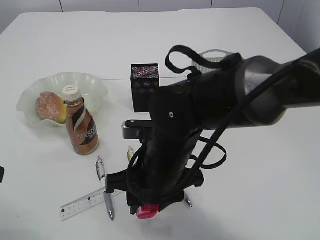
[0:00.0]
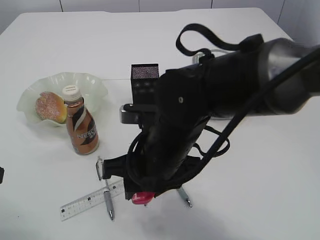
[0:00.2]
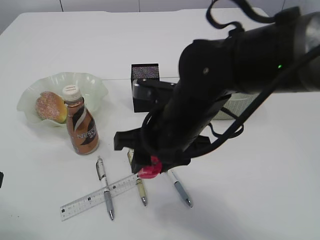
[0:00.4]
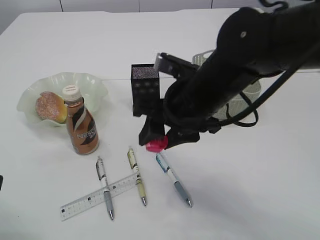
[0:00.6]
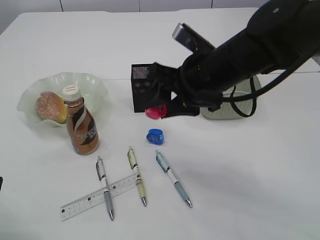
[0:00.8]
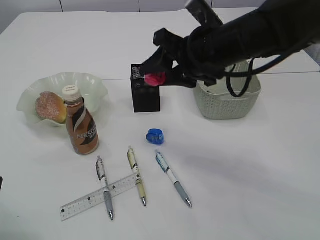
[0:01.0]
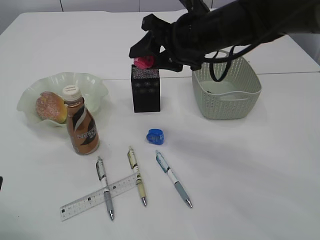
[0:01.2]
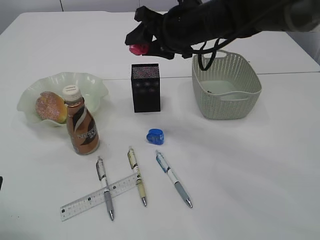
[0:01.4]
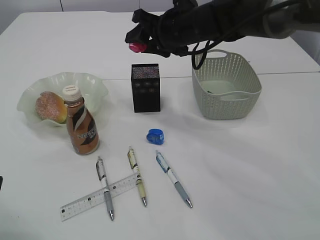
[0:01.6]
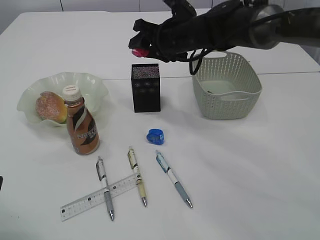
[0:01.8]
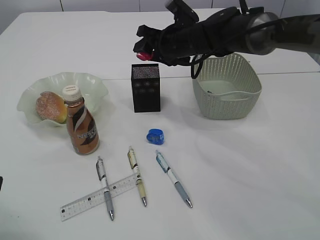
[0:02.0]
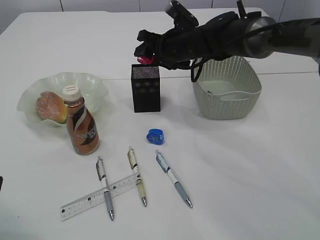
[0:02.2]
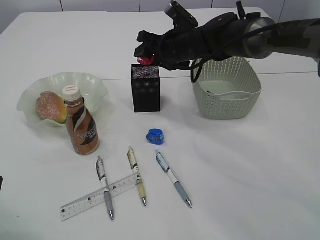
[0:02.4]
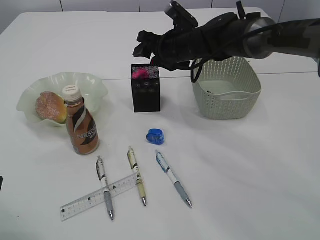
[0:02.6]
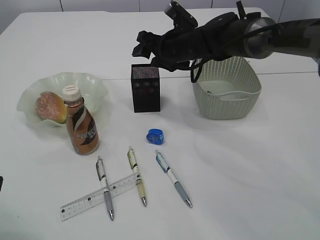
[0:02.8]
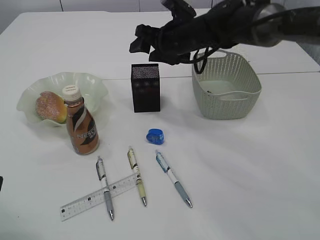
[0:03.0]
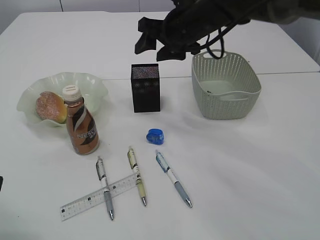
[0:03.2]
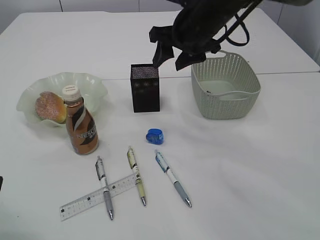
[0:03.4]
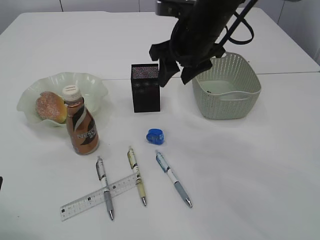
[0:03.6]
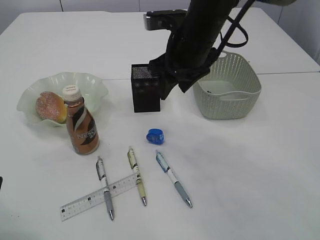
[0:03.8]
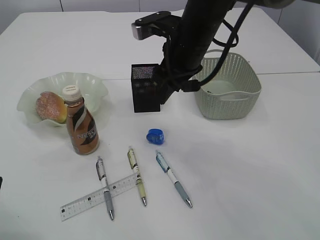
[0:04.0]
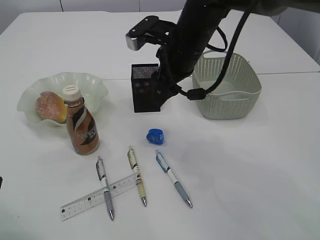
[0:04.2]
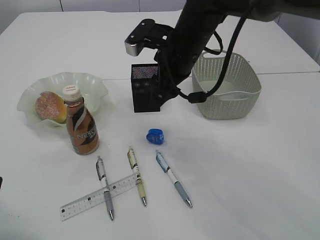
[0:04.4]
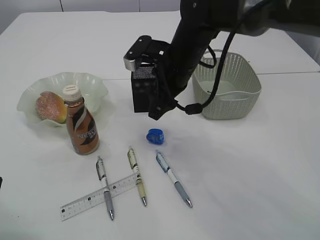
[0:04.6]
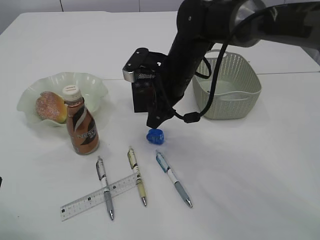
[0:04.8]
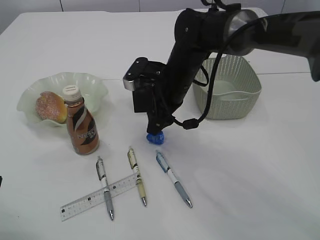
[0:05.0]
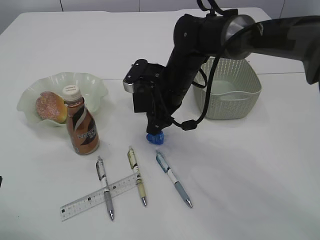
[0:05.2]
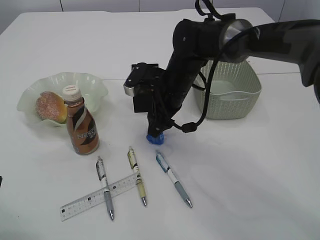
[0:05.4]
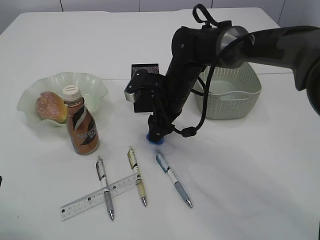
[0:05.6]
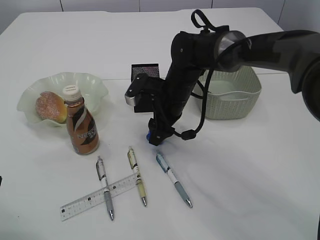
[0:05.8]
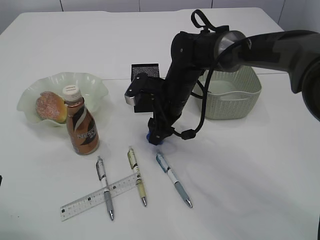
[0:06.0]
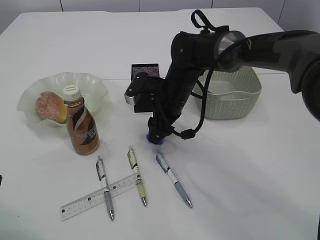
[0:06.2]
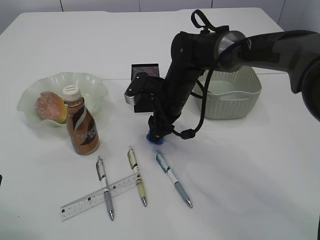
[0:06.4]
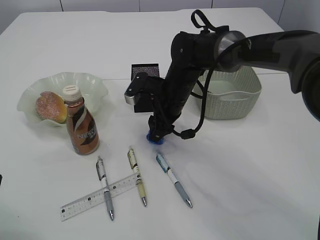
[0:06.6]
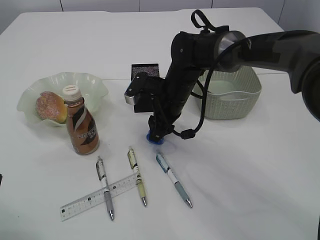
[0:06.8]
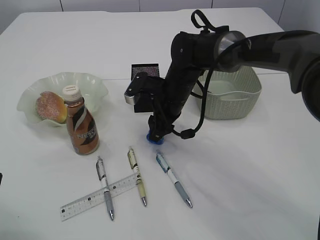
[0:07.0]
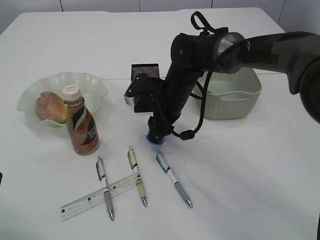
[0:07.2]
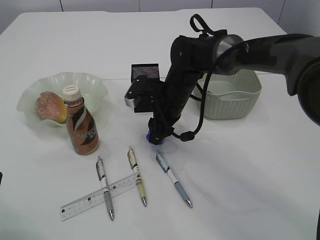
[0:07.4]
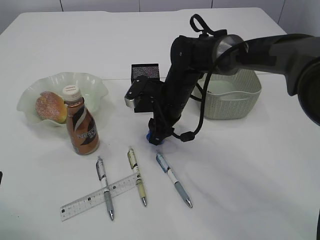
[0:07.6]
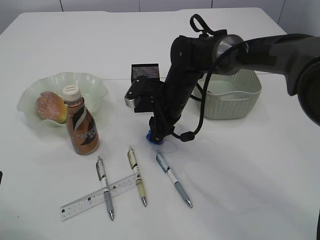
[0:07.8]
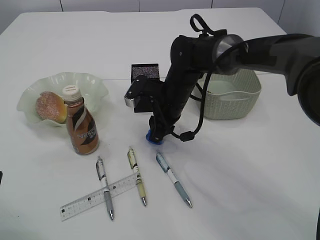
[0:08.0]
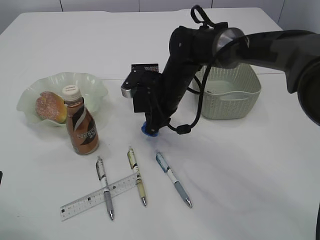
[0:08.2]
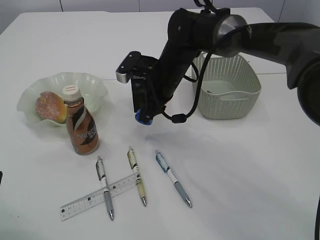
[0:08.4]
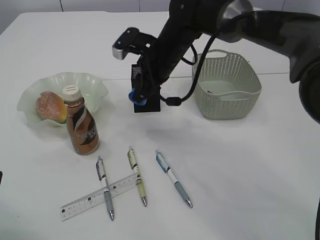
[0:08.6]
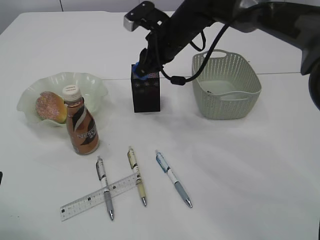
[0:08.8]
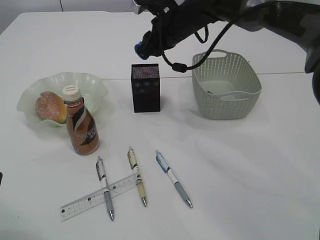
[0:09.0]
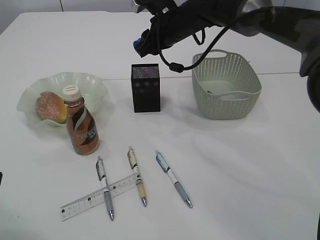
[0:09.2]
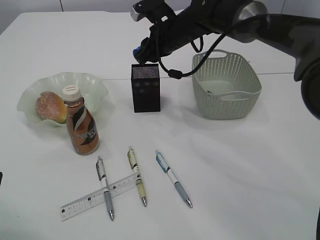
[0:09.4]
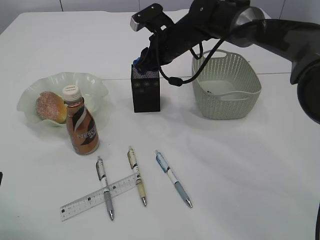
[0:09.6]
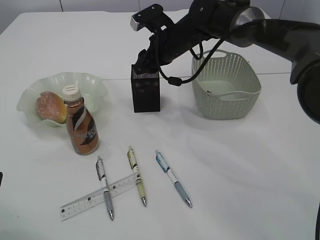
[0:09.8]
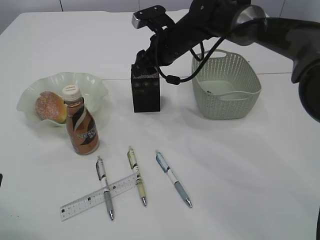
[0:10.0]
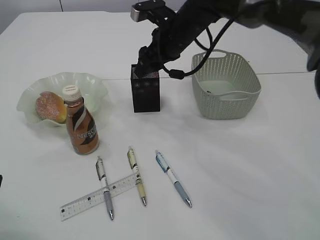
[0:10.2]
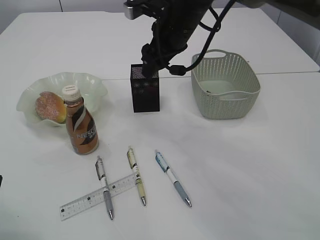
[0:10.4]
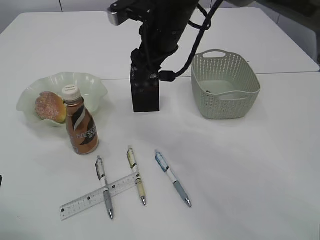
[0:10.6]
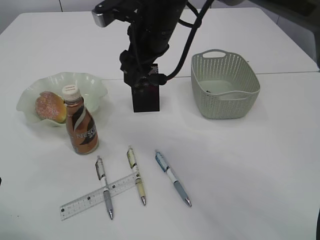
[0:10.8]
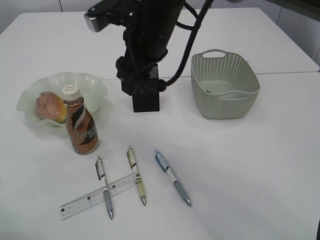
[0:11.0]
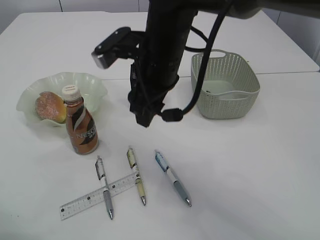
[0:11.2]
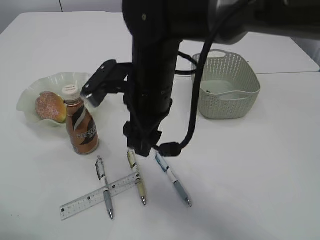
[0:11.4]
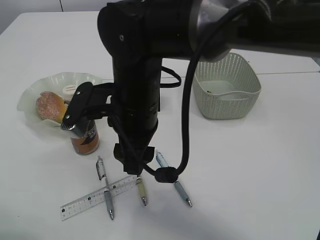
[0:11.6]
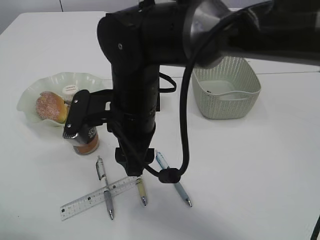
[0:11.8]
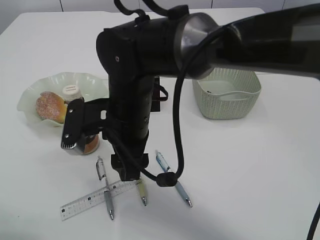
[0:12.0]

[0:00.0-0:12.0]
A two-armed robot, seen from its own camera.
Step, 0:00.2 to 0:03.0: Place the red pencil sharpener into the pen holder.
Step, 0:03.2 to 0:08.2: Pick up the blue pencil sharpener.
Step, 0:08.4 to 0:10.8: Place the blue pencil sharpener into the pen holder.
0:00.0 to 0:01.6: The right gripper is displaced forward and upward by roughly 25 cm.
0:03.0 to 0:04.4: The right gripper is displaced backward by roughly 10 cm.
0:04.4 to 0:06.0: The right gripper is displaced downward by about 10 cm.
0:06.0 to 0:07.6: Neither gripper changes place.
0:07.6 to 0:09.0: The right gripper is displaced upward and forward by roughly 15 cm.
0:09.0 to 0:10.4: The right gripper changes place by roughly 5 cm, and opens its fingers.
0:10.4 to 0:12.0: The right gripper heads backward, to the left and downward, covering some 20 cm.

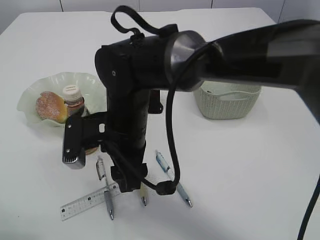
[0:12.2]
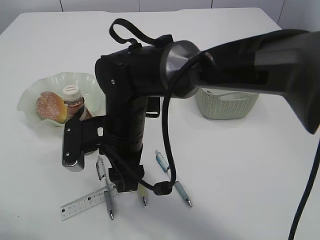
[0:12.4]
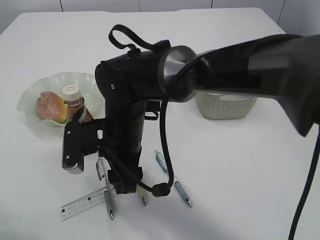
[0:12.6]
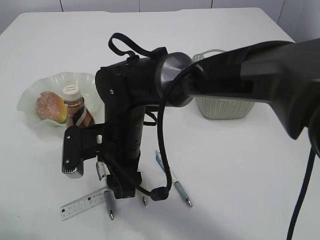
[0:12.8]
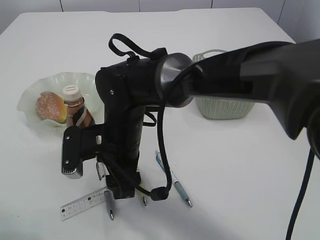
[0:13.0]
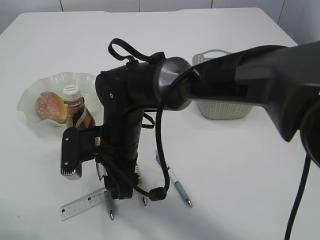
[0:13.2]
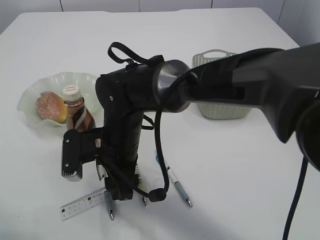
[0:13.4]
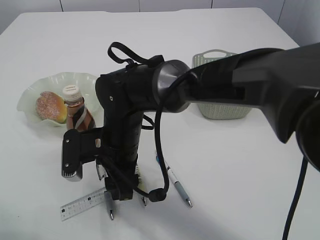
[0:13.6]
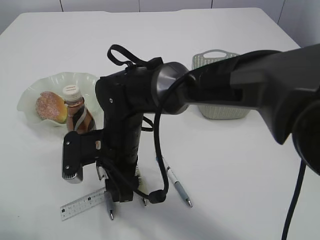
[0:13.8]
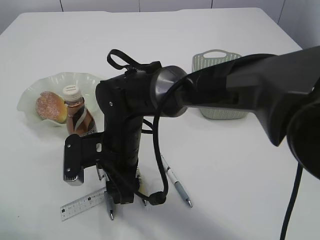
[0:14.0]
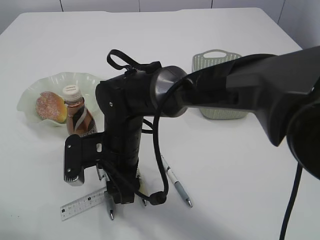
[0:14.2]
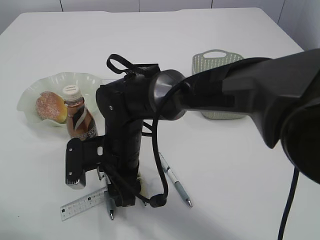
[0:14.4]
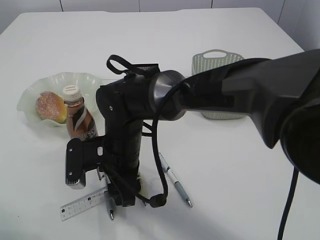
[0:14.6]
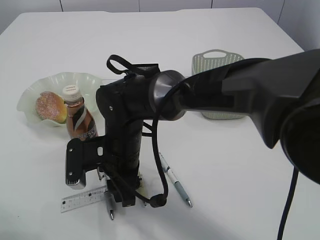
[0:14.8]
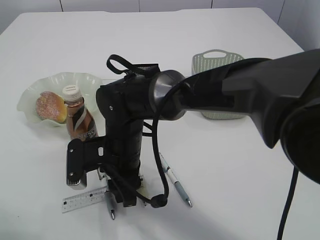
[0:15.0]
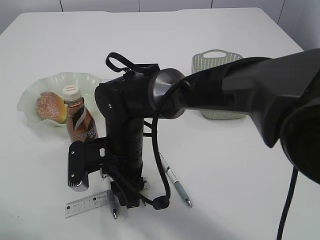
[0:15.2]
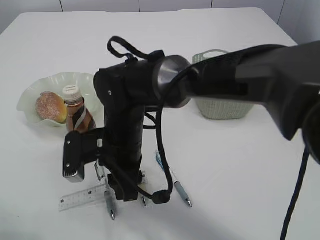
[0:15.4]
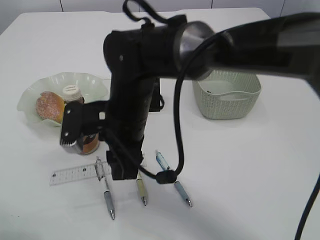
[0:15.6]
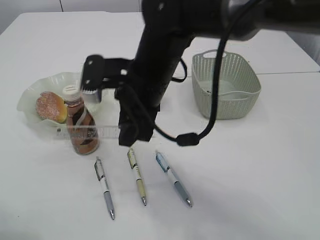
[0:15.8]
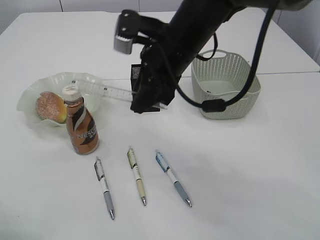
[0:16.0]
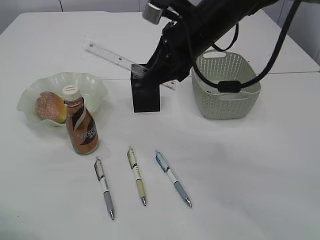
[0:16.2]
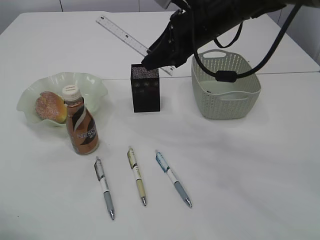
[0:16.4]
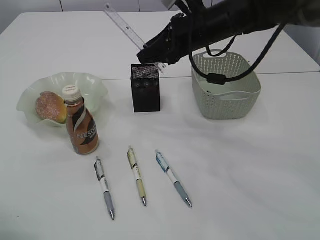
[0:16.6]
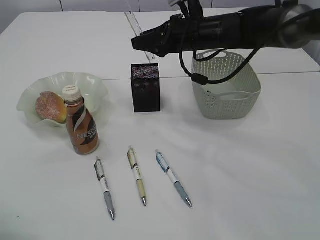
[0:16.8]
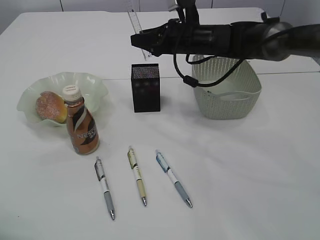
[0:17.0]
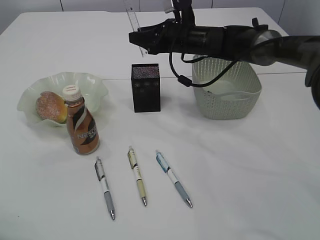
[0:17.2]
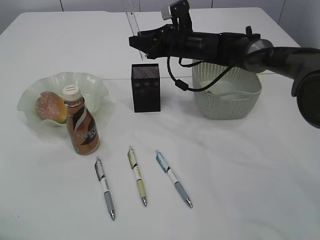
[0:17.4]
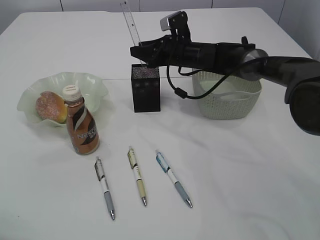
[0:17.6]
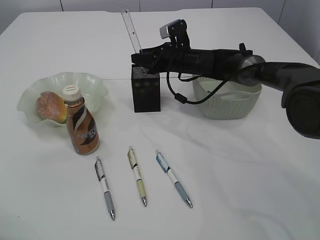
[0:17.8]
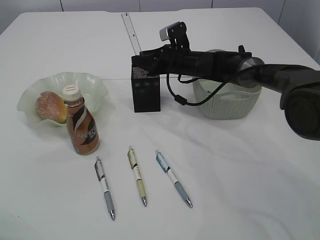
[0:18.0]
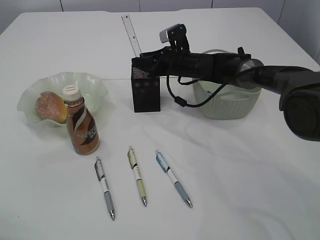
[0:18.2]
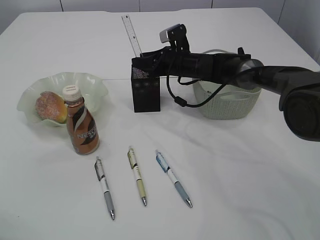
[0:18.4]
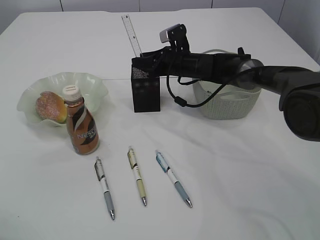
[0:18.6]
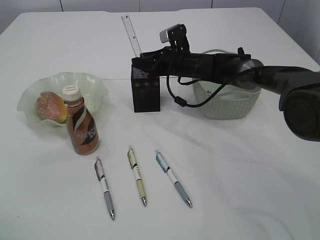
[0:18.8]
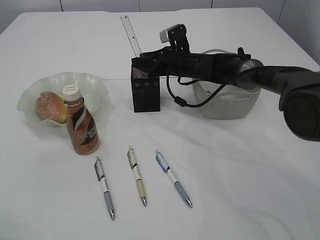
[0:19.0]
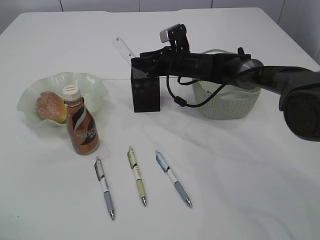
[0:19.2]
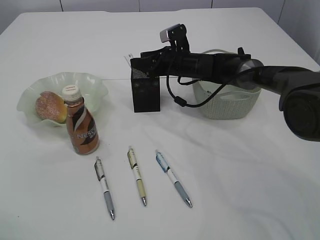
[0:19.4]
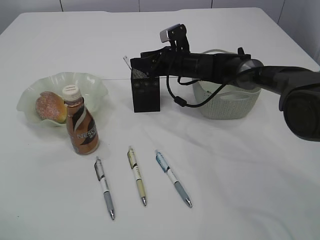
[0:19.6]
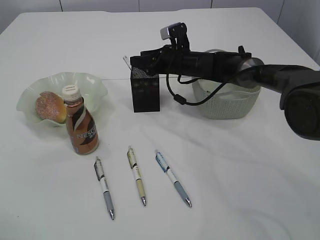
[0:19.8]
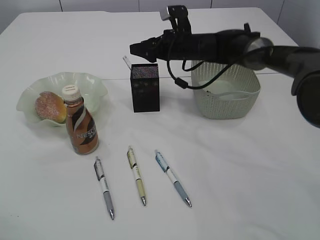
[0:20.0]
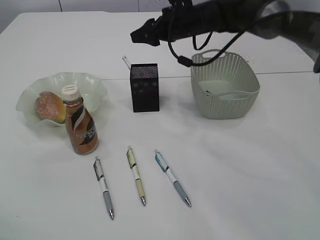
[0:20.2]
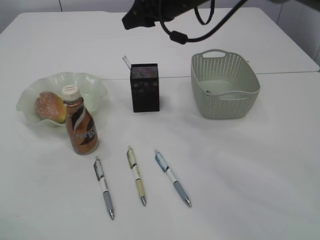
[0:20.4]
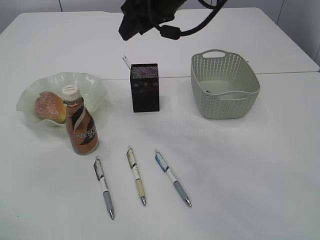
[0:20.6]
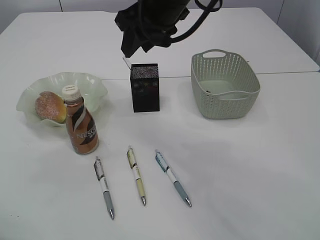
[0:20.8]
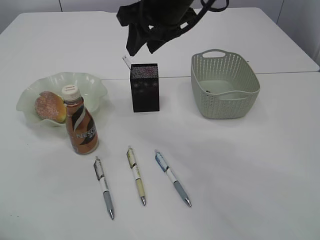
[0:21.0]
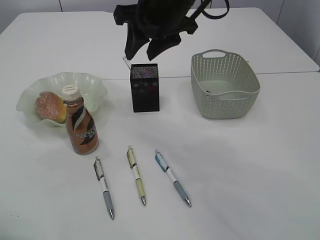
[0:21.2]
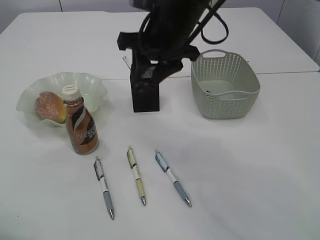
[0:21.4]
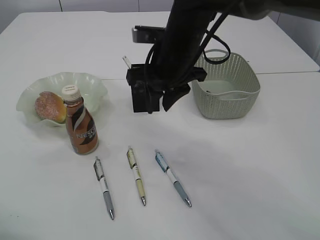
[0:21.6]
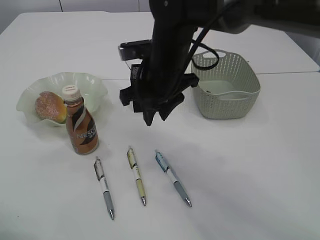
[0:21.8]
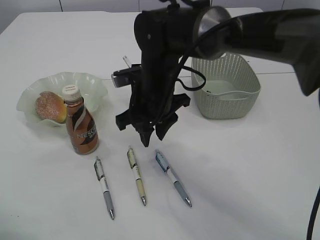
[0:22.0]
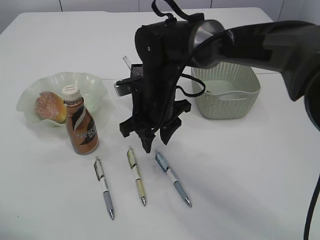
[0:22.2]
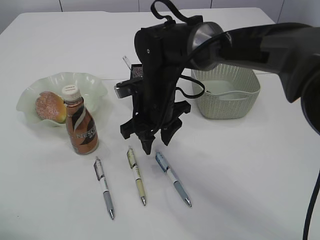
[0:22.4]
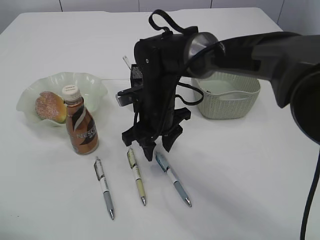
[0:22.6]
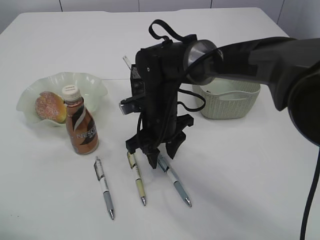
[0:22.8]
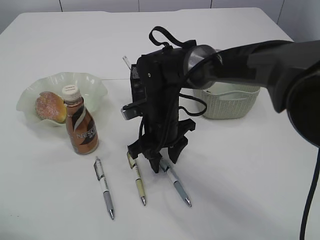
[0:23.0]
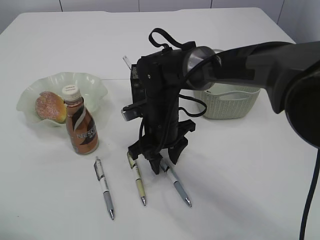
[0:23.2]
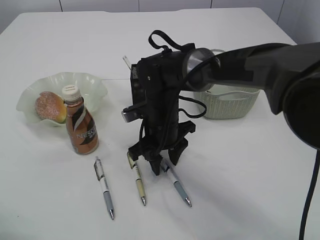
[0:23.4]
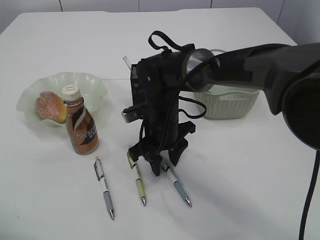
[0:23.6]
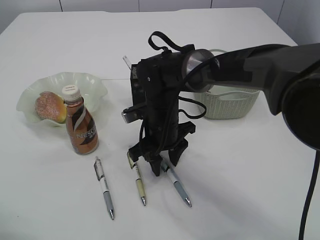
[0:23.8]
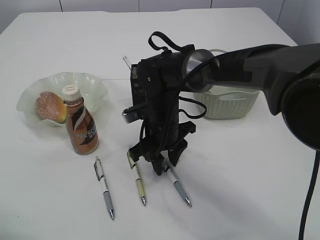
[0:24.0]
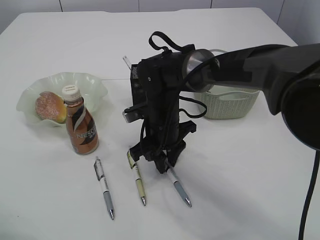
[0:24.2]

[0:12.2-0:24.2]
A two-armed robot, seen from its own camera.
Step, 0:12.2 to 0:15.6: pick up the ruler.
Step, 0:15.8 to 0:20.6: Place the ruler into the pen holder.
0:12.2 to 0:13.8: The right gripper changes place by approximately 5 cm.
0:13.8 to 0:15.2: The right gripper closes up.
0:15.2 to 0:16.6: The right gripper moves to the right, upward and forward, about 25 cm.
0:16.6 to 0:18.2: The right gripper is displaced downward and forward by some 15 cm.
0:18.2 to 0:19.8: Both grippers stay put.
0:19.8 to 0:21.2: The right gripper heads upward and backward, covering some 25 cm.
0:21.2 to 0:22.6: The right gripper goes about 20 cm downward.
0:22.6 to 0:24.2: There are only small adjustments of the grippers.
